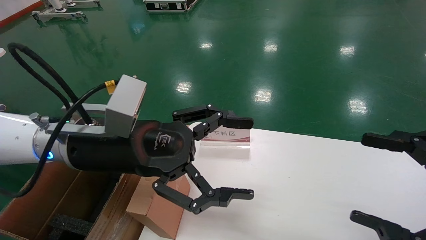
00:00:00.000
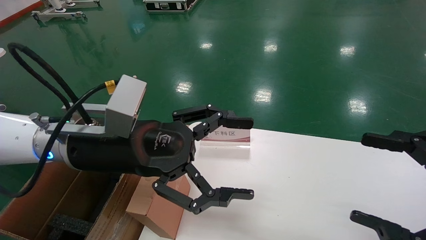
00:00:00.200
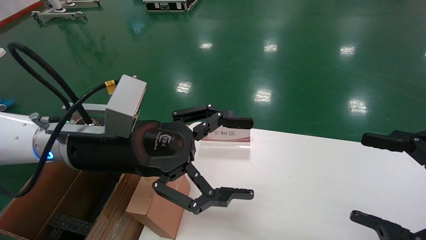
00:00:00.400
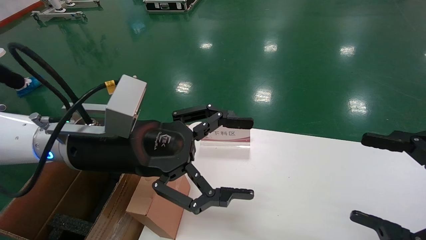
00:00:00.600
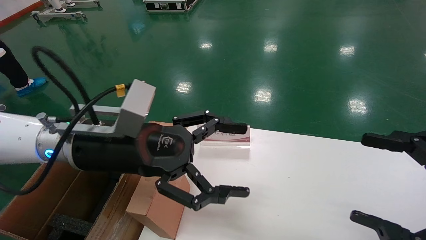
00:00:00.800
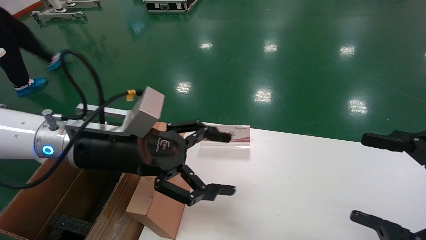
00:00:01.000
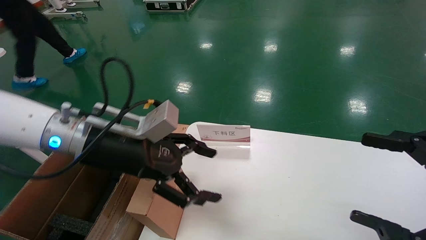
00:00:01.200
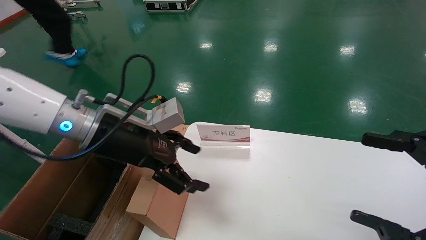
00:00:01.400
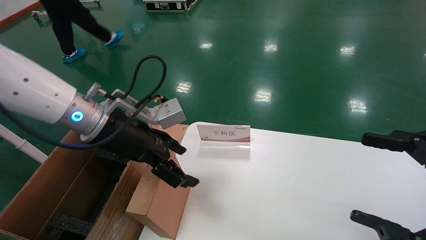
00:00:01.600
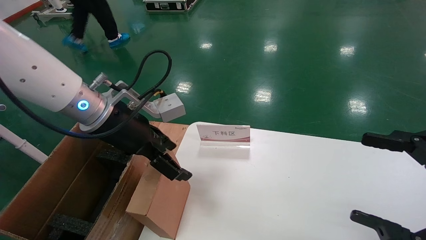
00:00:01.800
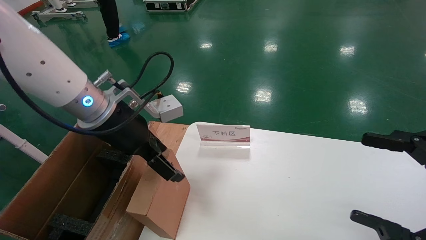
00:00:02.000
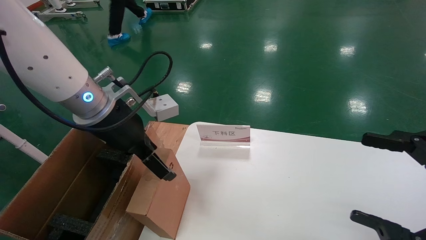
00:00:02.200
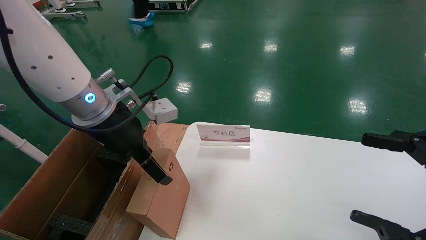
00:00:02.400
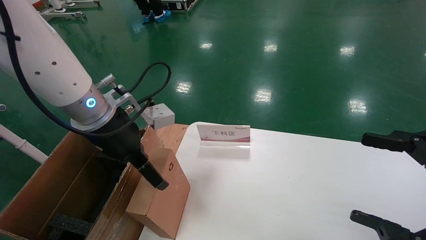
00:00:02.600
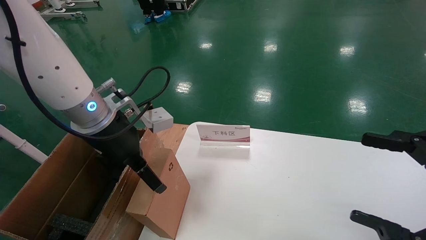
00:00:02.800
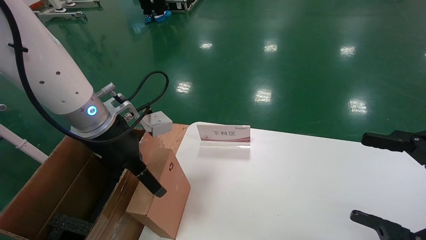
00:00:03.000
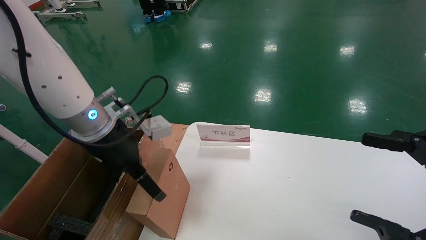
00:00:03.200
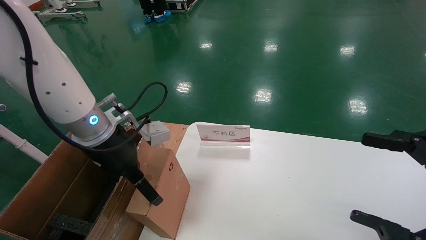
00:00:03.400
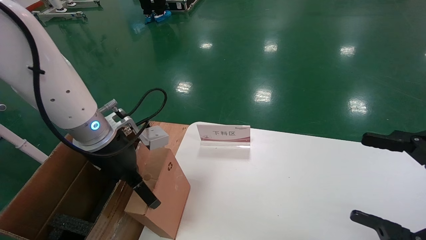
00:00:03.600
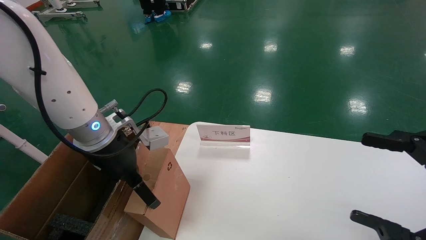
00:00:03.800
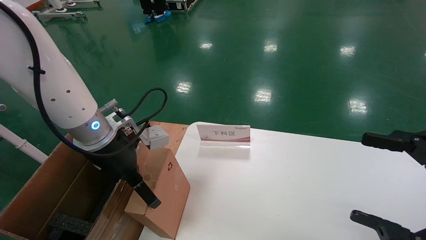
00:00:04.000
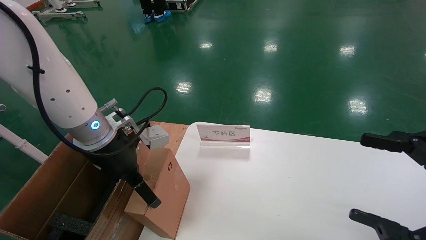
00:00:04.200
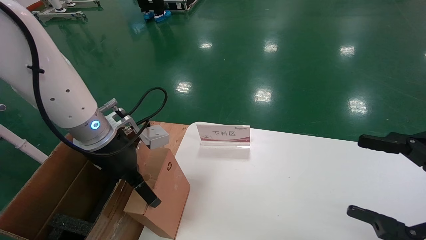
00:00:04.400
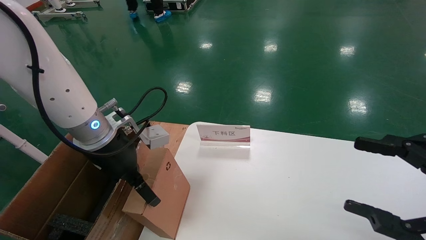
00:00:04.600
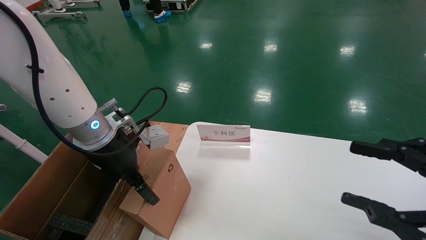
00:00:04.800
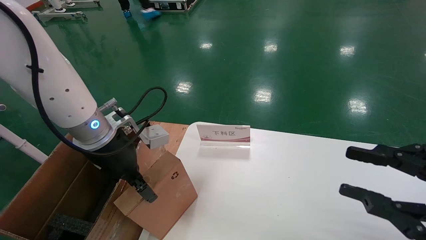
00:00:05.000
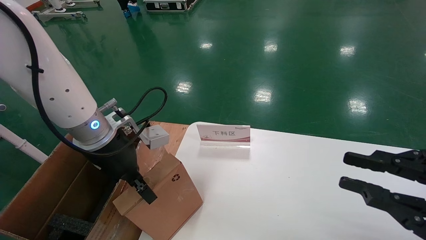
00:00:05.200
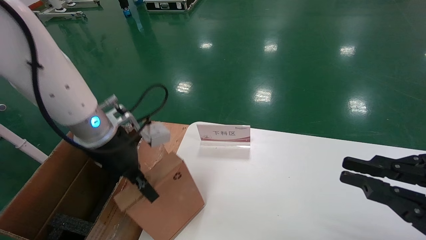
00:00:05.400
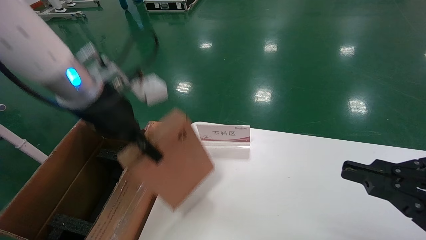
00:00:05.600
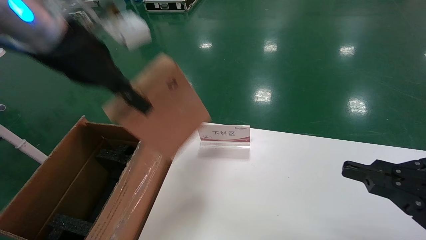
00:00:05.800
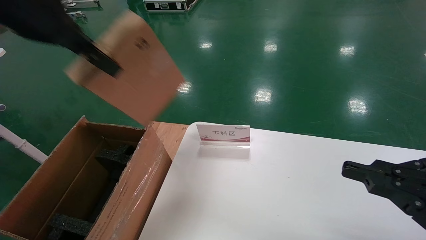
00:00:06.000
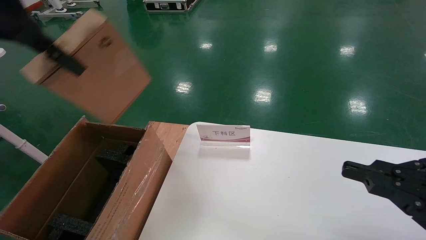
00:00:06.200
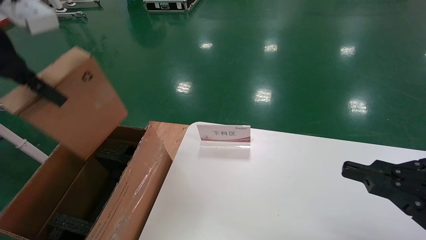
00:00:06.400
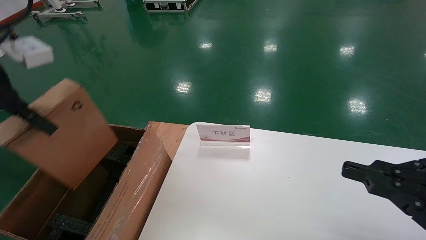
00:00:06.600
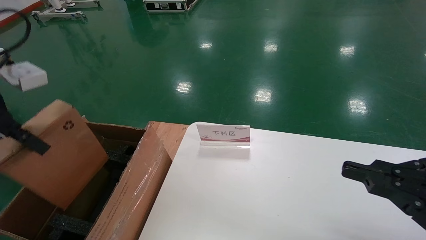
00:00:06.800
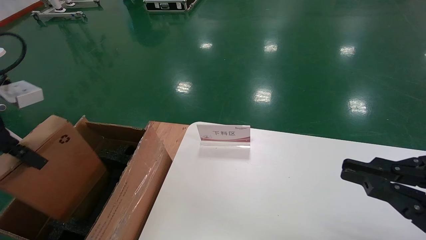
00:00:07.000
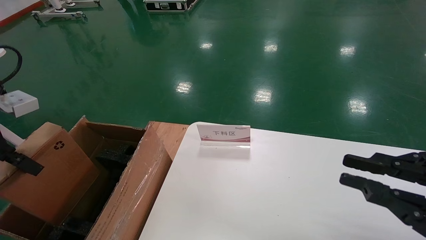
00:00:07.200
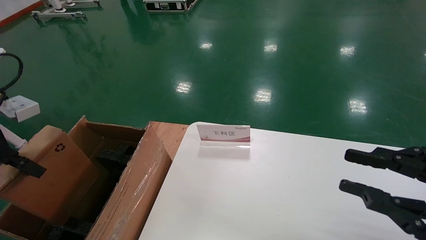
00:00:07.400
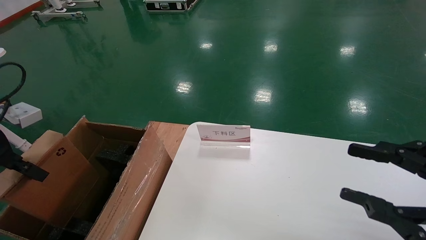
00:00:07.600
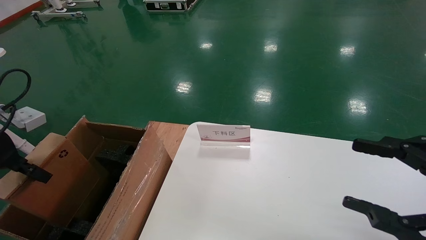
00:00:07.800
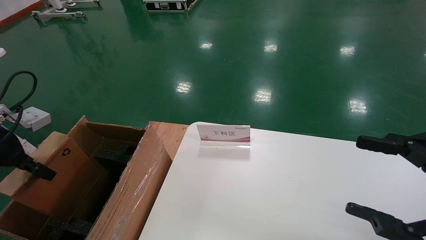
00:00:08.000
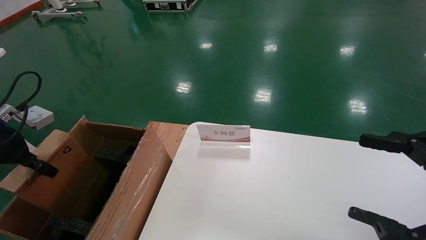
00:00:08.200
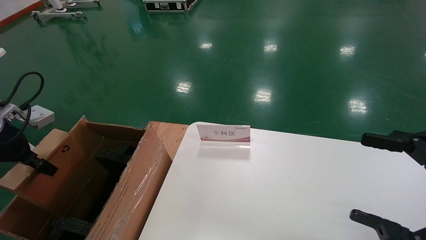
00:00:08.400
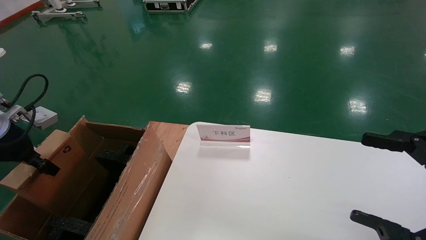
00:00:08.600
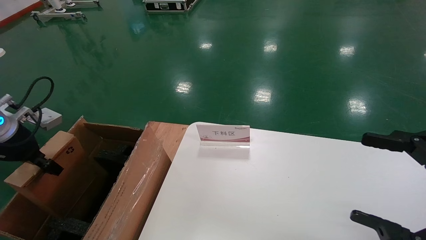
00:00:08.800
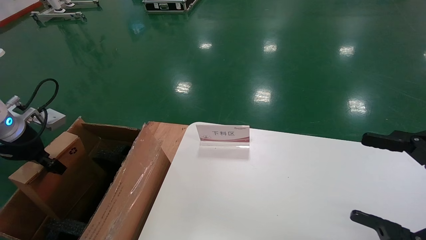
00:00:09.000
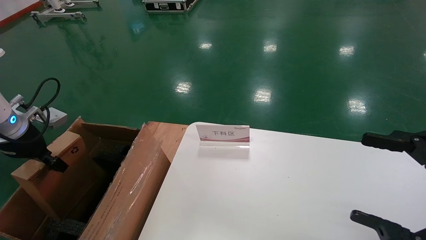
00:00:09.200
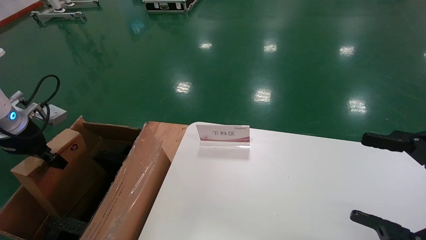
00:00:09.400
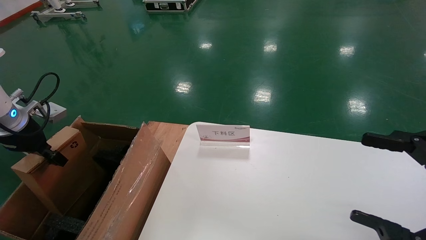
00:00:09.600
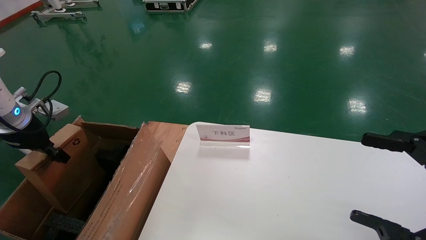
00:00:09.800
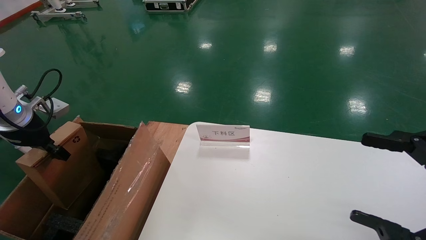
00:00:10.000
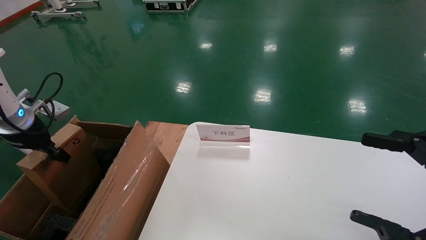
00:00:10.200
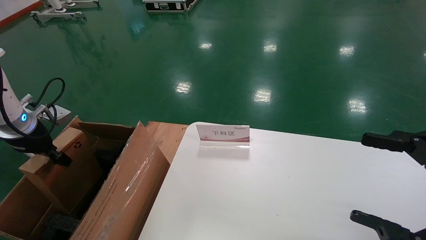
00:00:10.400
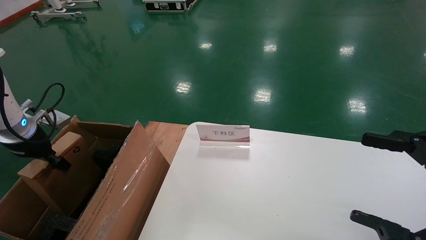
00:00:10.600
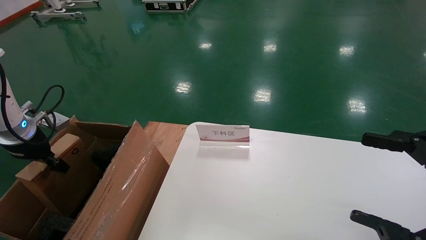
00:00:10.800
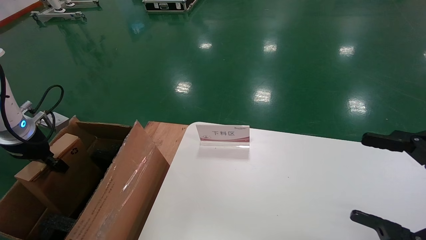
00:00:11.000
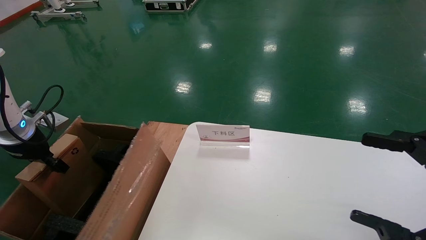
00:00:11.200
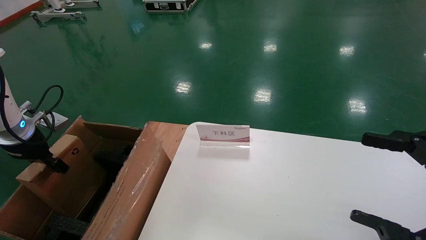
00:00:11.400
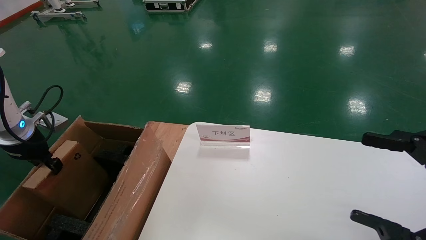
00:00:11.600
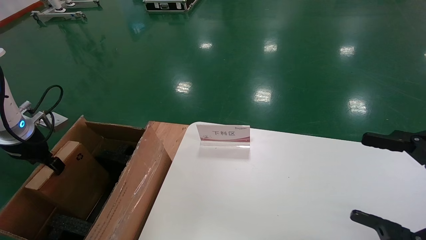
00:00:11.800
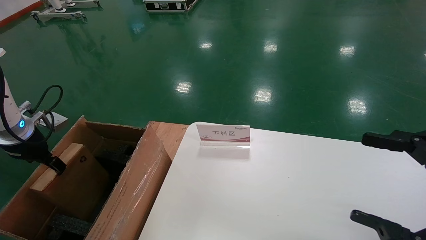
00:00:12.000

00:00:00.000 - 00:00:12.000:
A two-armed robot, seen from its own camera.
Task of the whole recording: pick up the small cardboard box and load it into the large cardboard box.
Step, 00:00:01.000 - 00:00:05.800: Pick up the mouse and power cord box.
00:00:00.000 - 00:00:01.600: The left gripper travels forward by approximately 5 cm.
00:00:03.000 - 00:00:04.400: There are only small adjustments of the grippers.
00:00:04.400 - 00:00:06.000: The left gripper shifts about 20 cm upward, and closes its fingers, while the right gripper closes its fingers.
00:00:06.000 - 00:00:07.600: The left gripper travels downward and to the left by roughly 25 cm; the right gripper opens up.
00:00:07.600 - 00:00:09.000: The left gripper is displaced forward and downward by about 10 cm, while the right gripper opens.
00:00:09.000 - 00:00:10.400: There are only small adjustments of the grippers.
00:00:10.400 - 00:00:12.000: The left gripper opens.

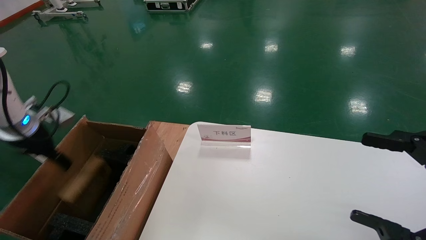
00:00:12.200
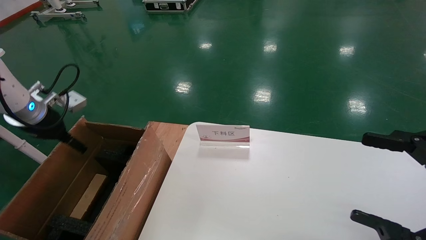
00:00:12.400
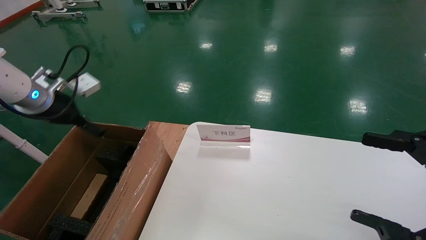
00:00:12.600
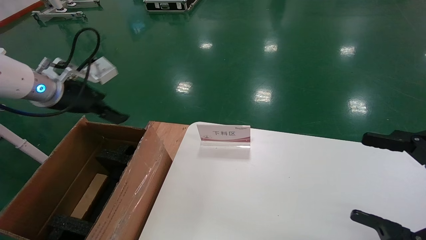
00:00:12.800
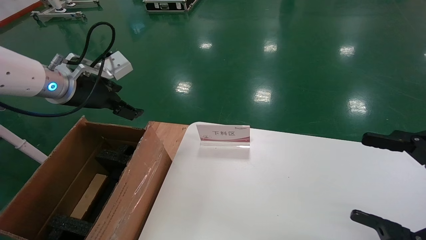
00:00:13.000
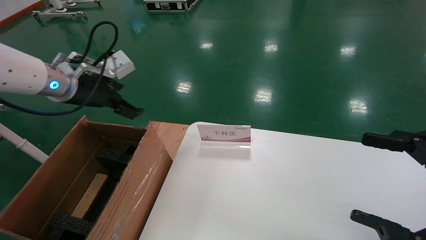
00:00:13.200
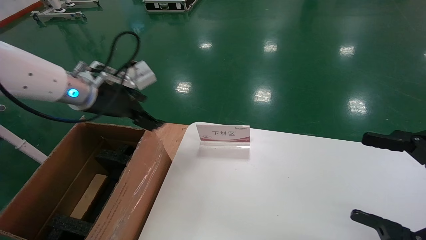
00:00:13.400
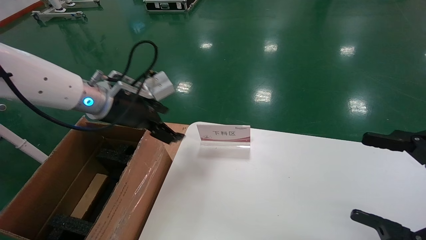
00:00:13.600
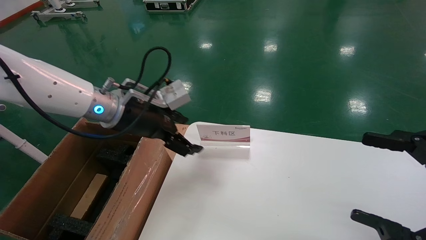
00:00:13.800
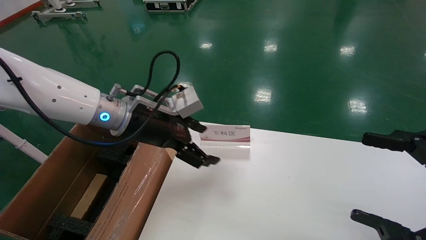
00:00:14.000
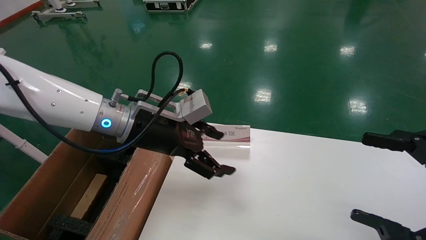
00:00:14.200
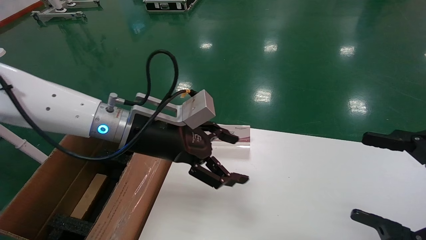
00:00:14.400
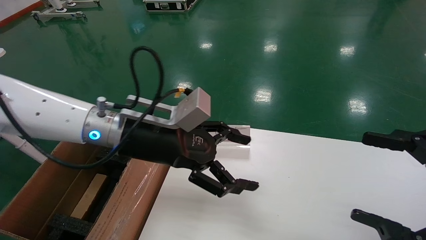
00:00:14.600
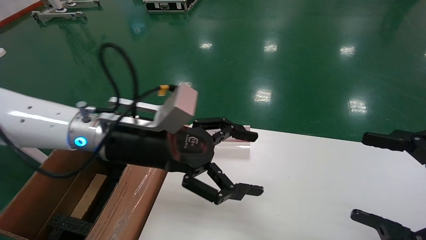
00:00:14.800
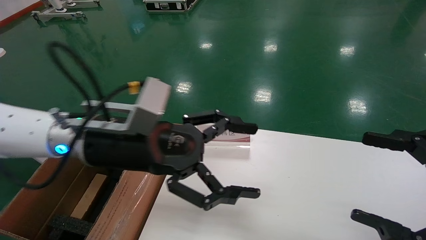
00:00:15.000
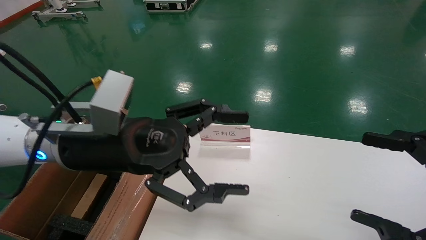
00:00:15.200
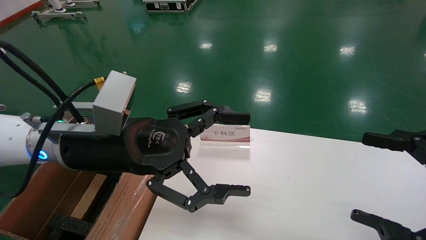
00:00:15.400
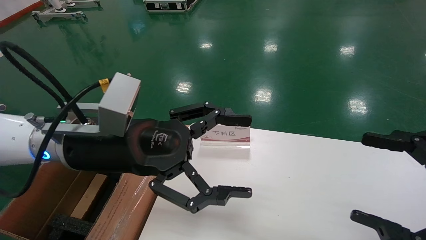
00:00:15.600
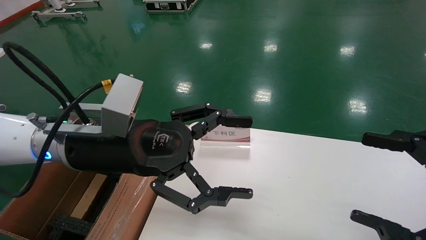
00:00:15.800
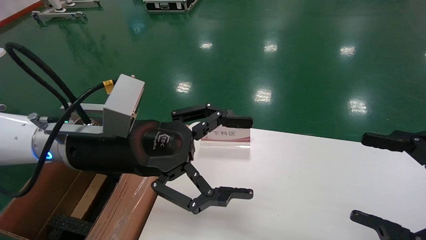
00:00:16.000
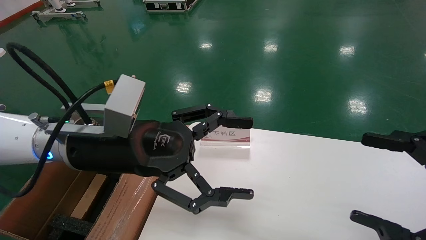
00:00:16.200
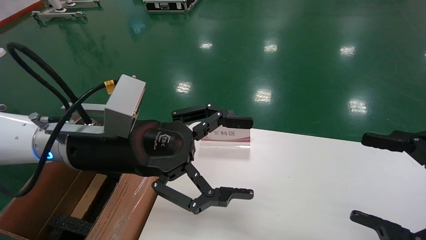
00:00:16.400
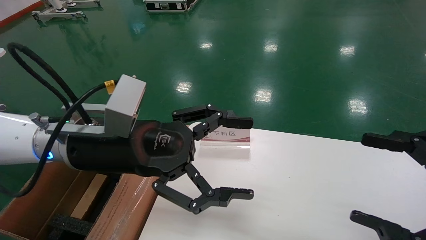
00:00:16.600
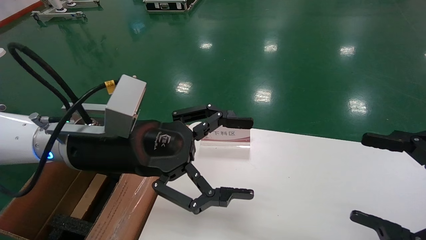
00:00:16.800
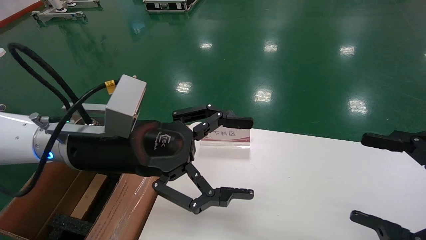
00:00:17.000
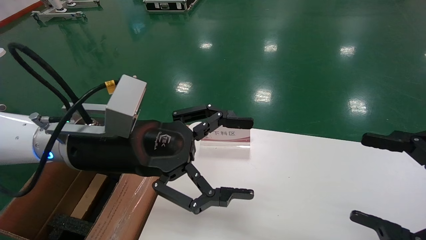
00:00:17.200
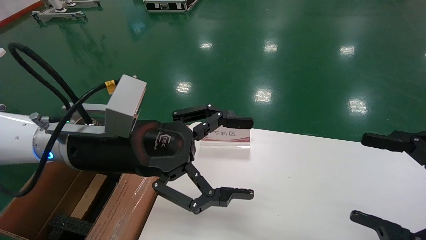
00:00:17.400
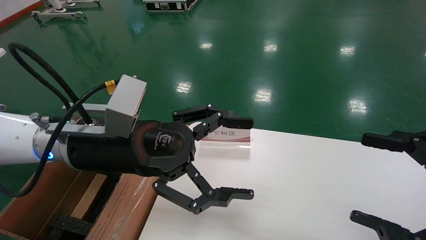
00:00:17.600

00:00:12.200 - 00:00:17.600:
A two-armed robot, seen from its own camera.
Task of the whole recording: pick up the small cardboard box and load it into the large cardboard box.
00:00:12.200 - 00:00:13.600: The left gripper shifts roughly 20 cm to the right.
00:00:13.600 - 00:00:15.000: The left gripper goes approximately 10 cm backward and to the right.
00:00:15.000 - 00:00:16.200: There are only small adjustments of the grippers.
00:00:16.200 - 00:00:17.600: The two grippers keep their place.
